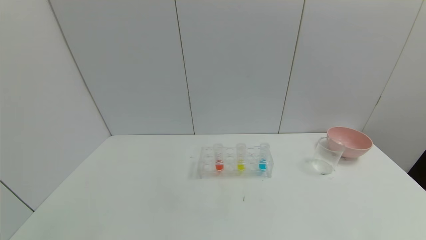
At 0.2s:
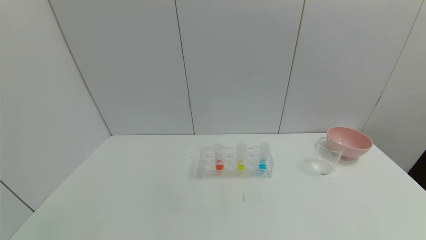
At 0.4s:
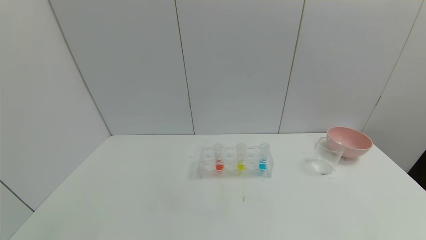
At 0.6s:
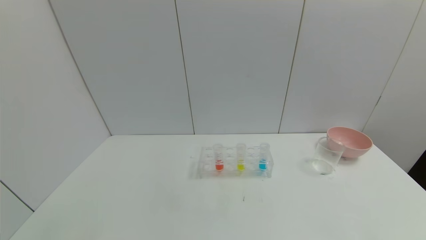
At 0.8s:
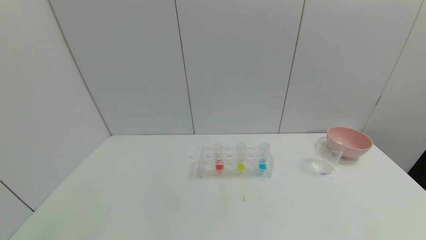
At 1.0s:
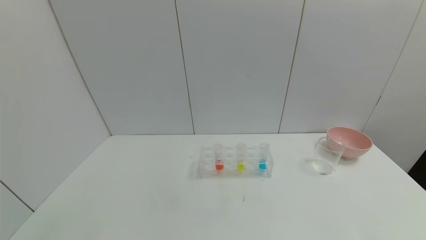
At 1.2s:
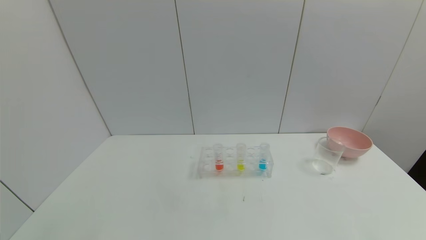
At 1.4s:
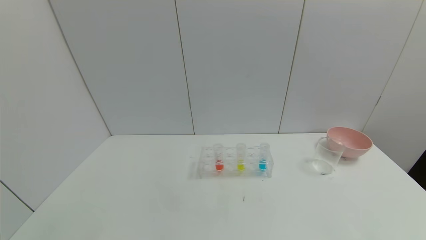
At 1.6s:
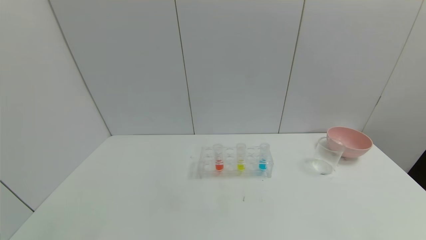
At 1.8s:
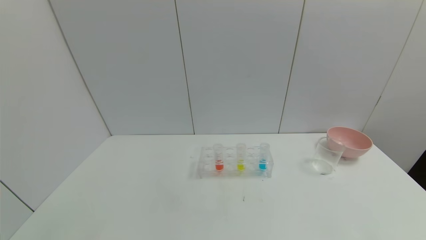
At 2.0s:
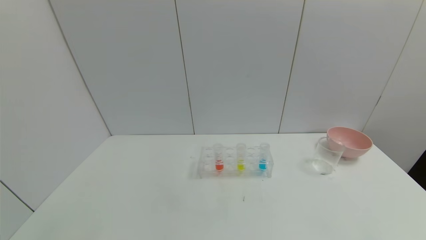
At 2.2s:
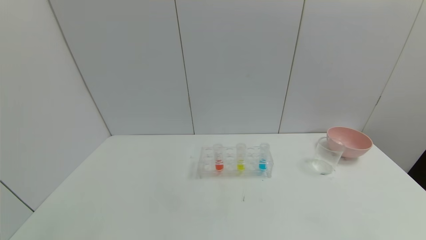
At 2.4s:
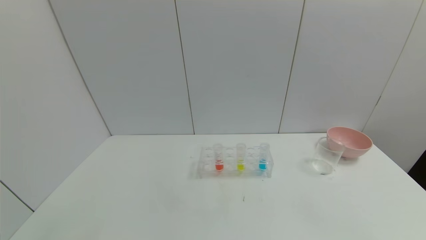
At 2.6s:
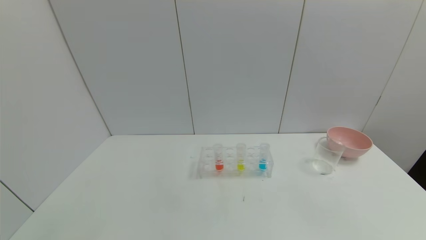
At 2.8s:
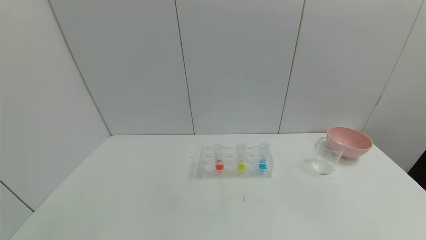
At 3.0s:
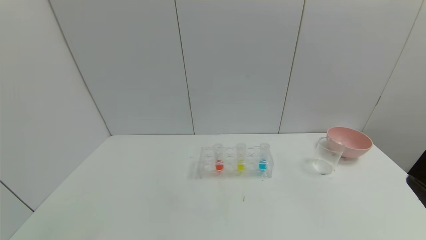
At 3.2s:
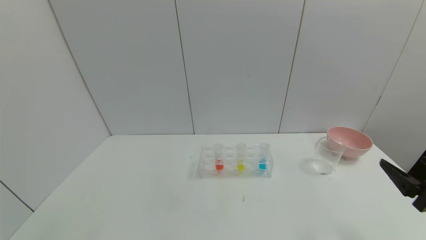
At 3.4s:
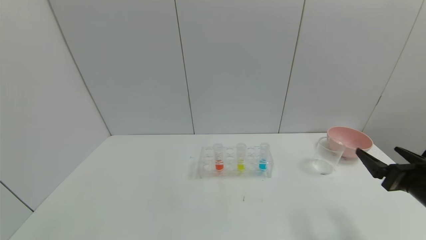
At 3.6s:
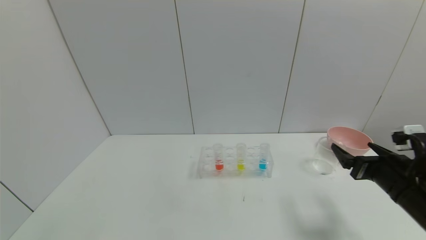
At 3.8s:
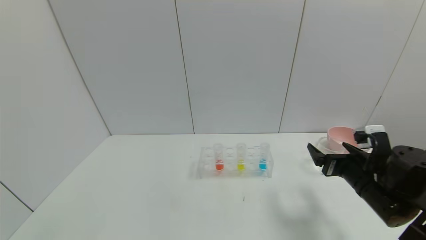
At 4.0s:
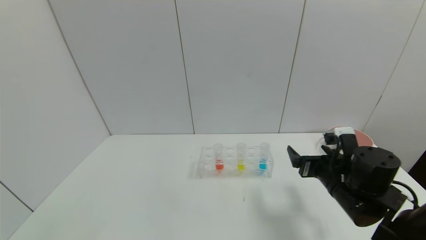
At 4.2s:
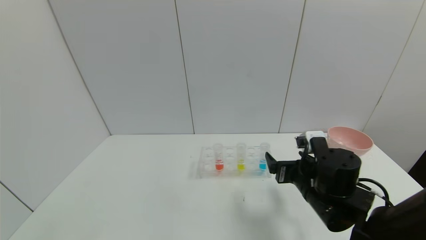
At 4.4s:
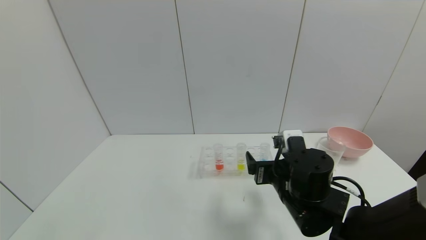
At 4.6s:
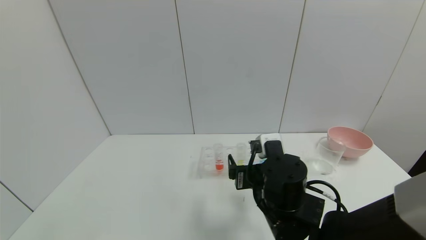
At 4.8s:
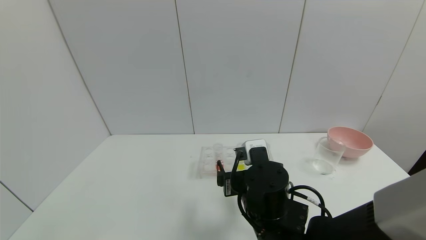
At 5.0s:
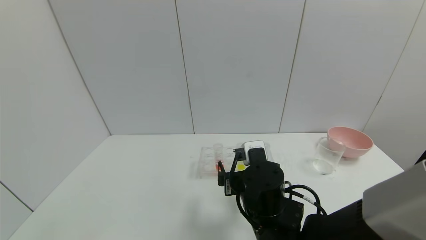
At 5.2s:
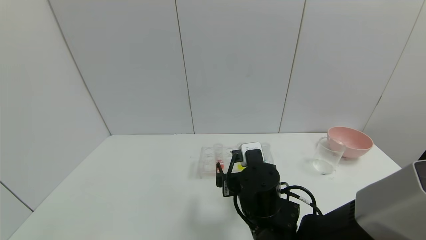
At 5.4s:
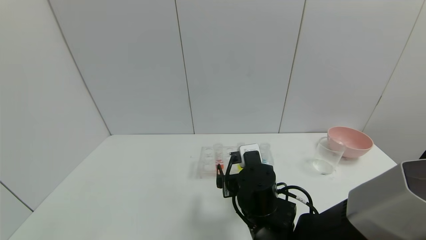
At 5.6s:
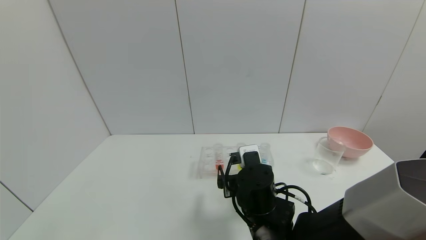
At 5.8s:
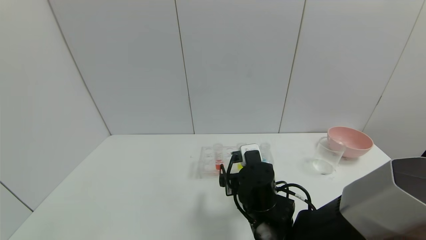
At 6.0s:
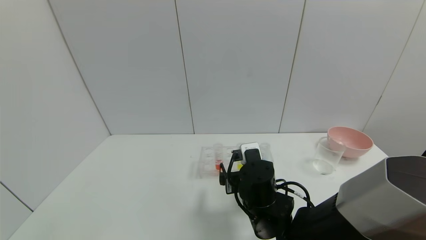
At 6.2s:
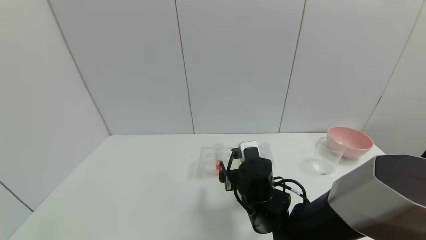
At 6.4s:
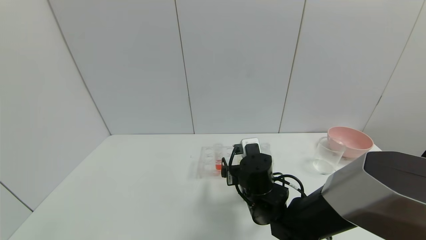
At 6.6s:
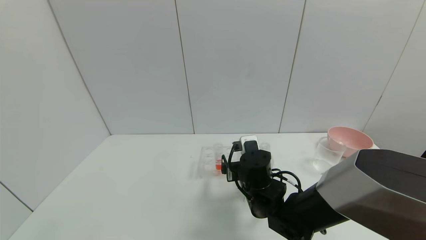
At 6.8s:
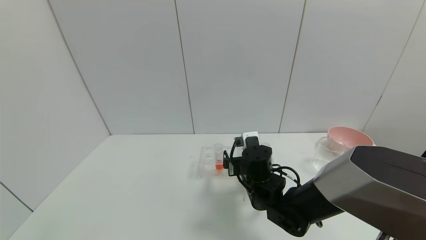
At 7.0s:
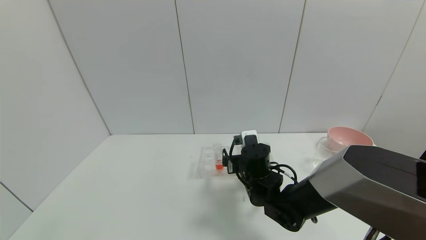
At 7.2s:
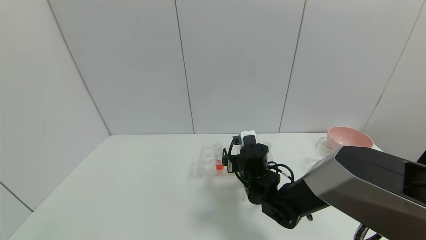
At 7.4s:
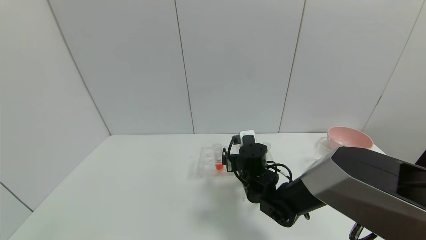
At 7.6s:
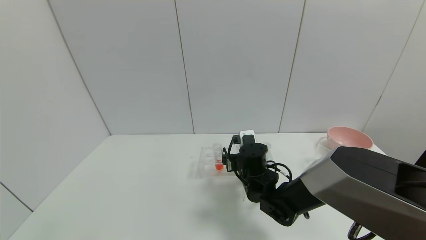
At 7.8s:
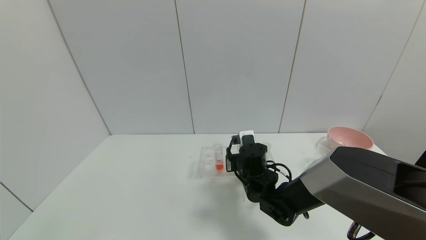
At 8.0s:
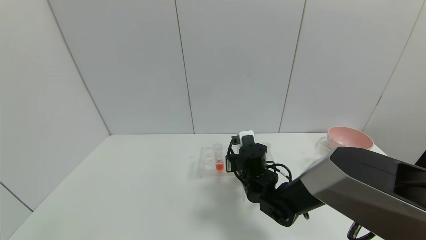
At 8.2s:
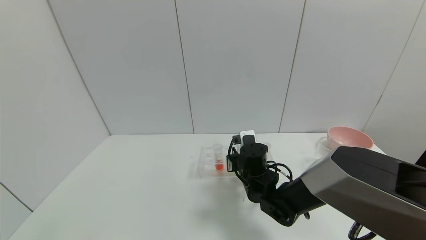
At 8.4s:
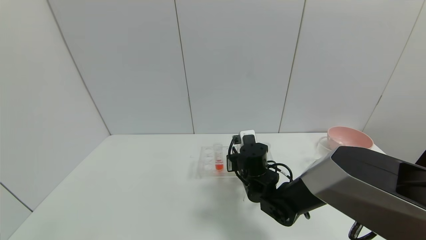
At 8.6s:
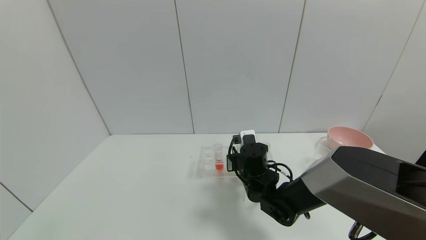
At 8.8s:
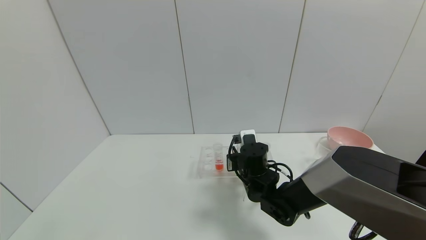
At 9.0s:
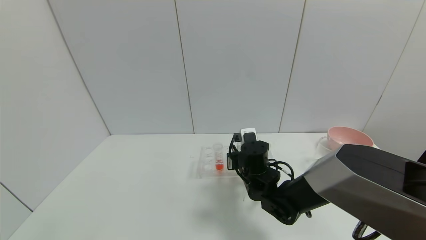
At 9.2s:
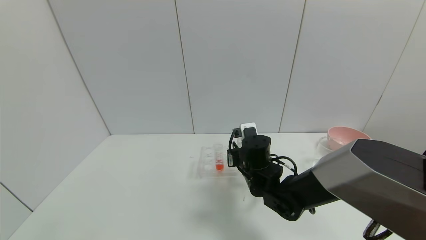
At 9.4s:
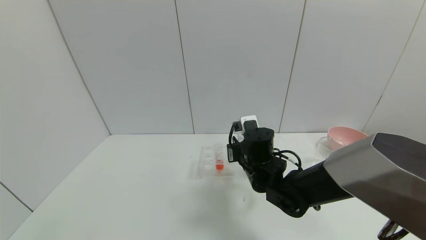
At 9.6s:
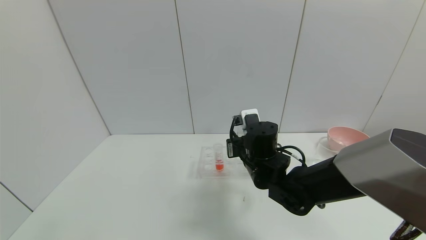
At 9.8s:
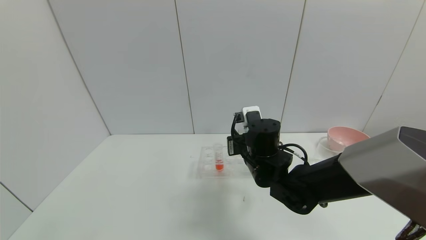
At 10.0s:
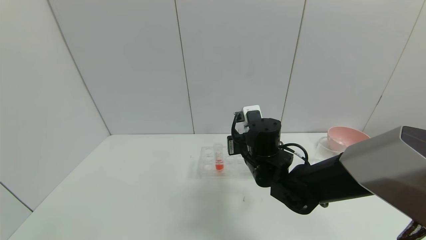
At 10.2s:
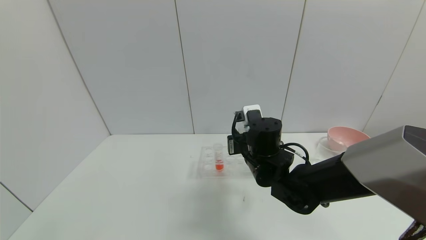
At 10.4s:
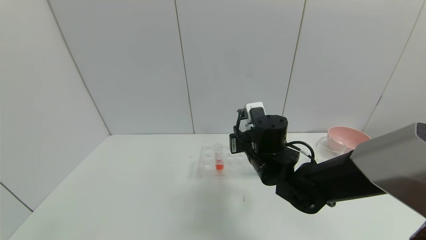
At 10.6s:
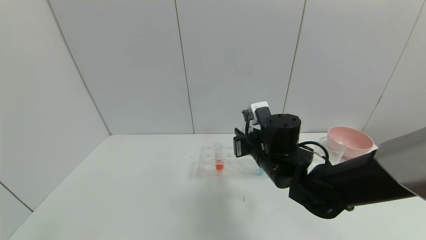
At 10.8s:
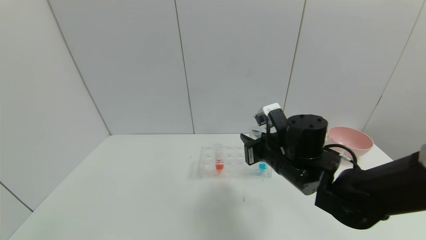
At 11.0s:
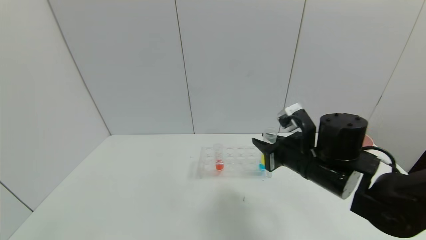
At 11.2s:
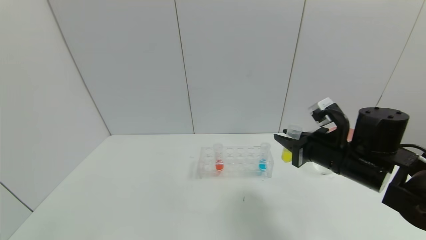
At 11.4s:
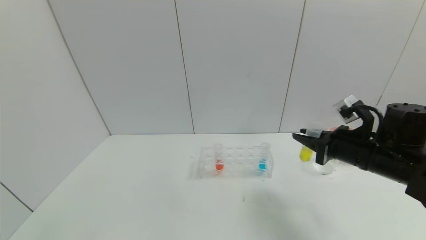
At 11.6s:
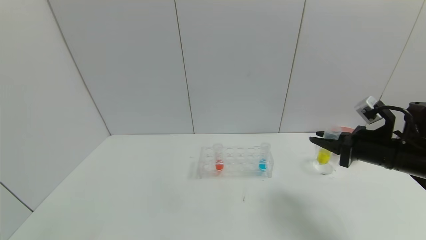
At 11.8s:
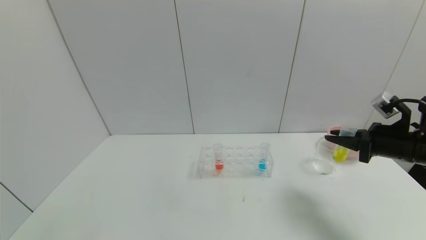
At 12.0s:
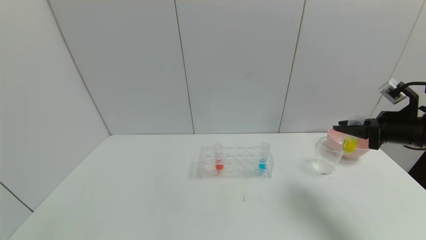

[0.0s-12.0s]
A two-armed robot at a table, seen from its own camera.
Task of the whole recording: pick up the test tube with yellow pigment and the test tube with blue pigment by grippers and pour them into the beaker.
Step, 0.0s to 8.4s: Grasp the yellow reagent with the right gripper.
0.0s to 1.6s: The two grippers keep their place.
3.0s to 4.4s: The right gripper travels to the left and forward by roughly 30 cm.
4.4s to 6.0s: The right gripper shifts about 5 cm to the left.
6.0s to 7.6s: The right gripper heads forward, covering roughly 10 cm.
7.6s to 9.0s: The right gripper closes up.
9.0s to 10.4s: The right gripper goes roughly 5 cm upward.
10.4s to 12.0s: The right gripper heads to the right, covering some 30 cm.

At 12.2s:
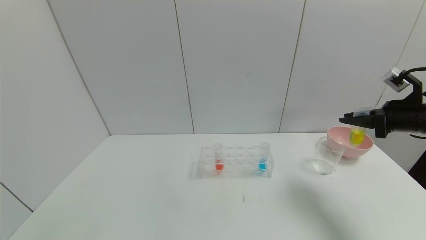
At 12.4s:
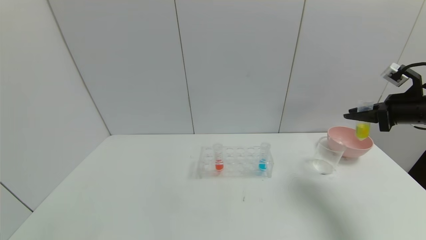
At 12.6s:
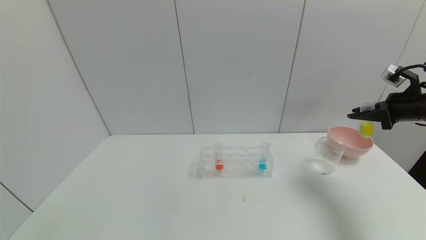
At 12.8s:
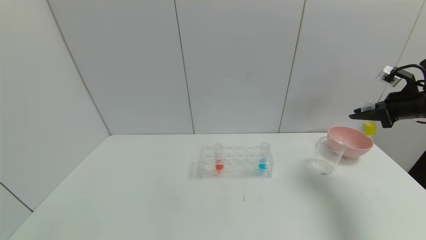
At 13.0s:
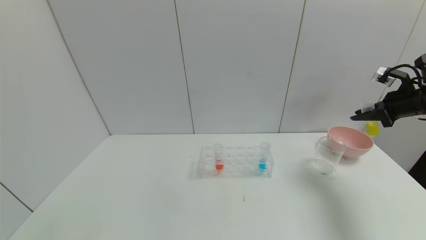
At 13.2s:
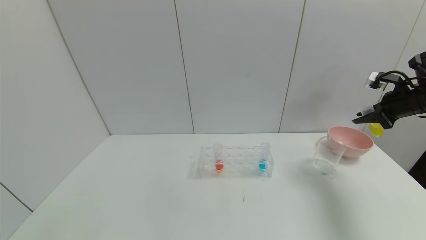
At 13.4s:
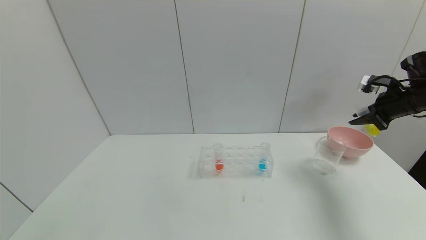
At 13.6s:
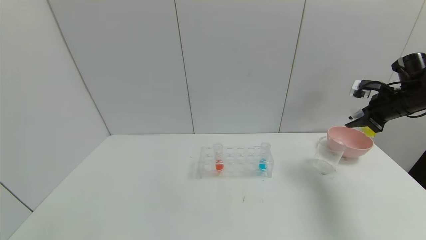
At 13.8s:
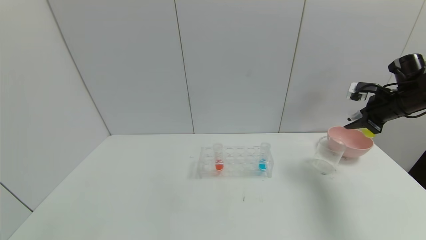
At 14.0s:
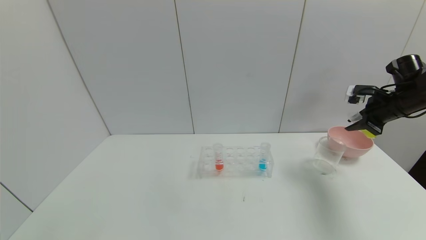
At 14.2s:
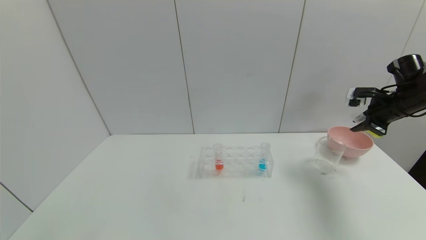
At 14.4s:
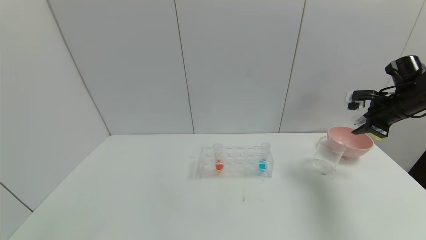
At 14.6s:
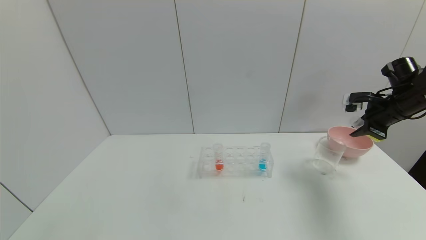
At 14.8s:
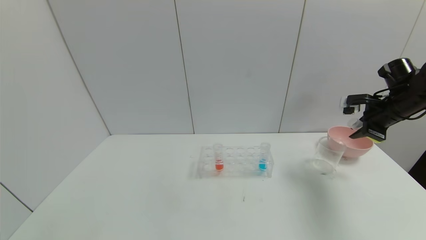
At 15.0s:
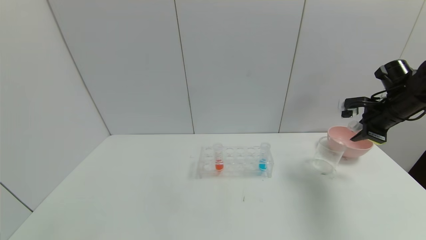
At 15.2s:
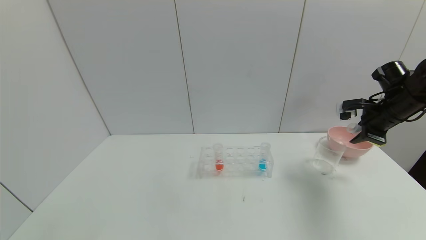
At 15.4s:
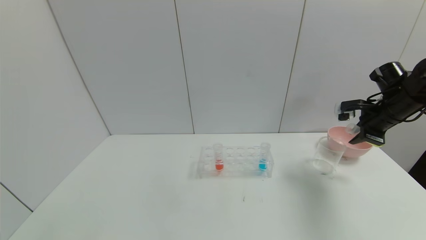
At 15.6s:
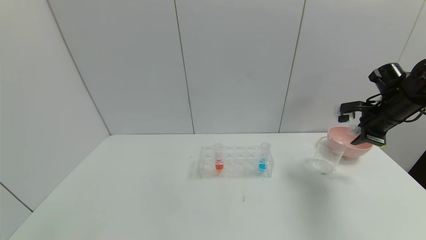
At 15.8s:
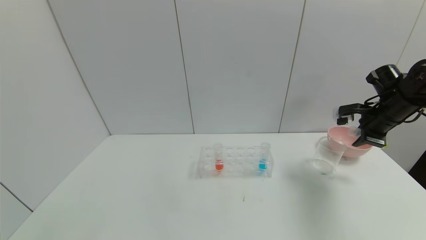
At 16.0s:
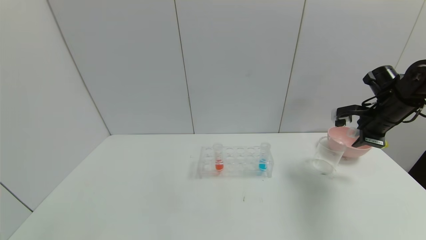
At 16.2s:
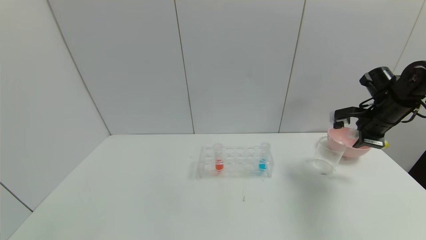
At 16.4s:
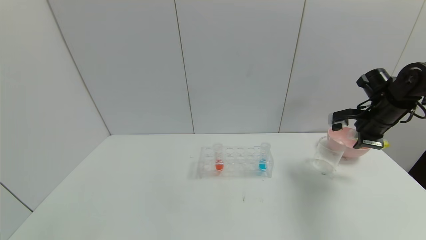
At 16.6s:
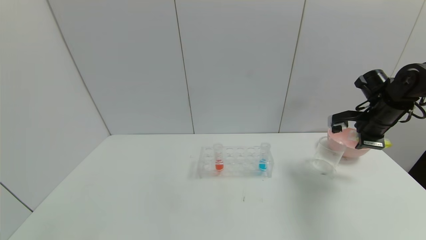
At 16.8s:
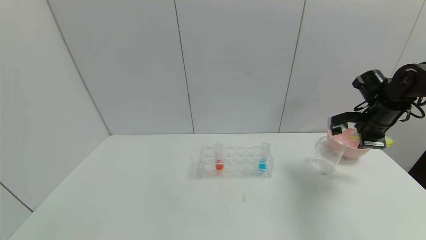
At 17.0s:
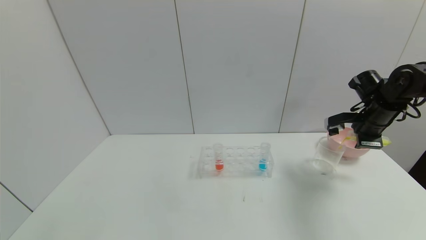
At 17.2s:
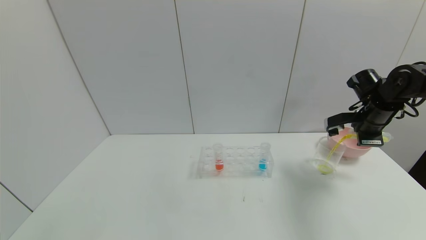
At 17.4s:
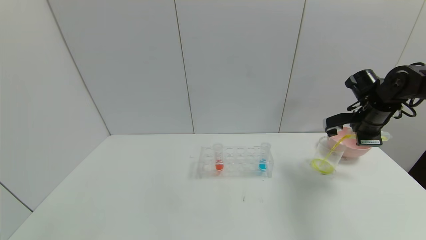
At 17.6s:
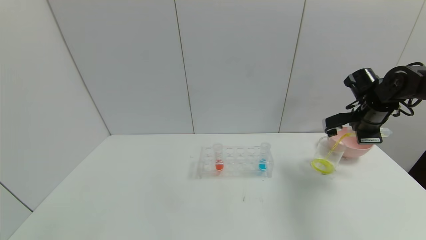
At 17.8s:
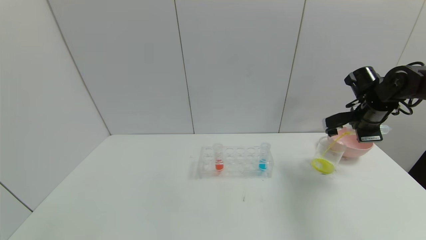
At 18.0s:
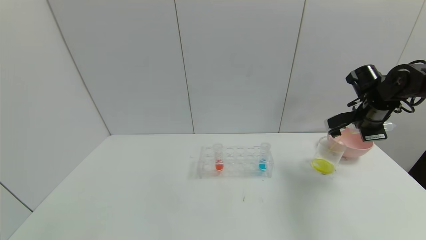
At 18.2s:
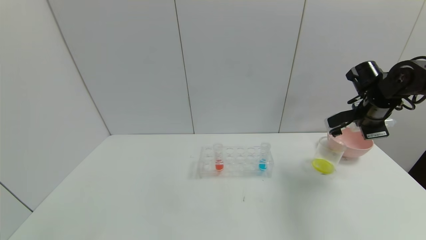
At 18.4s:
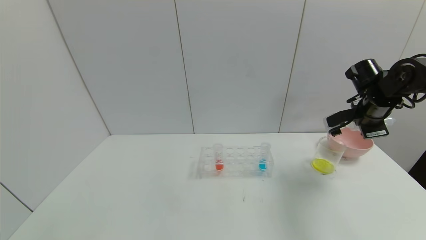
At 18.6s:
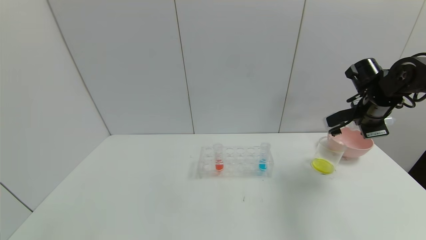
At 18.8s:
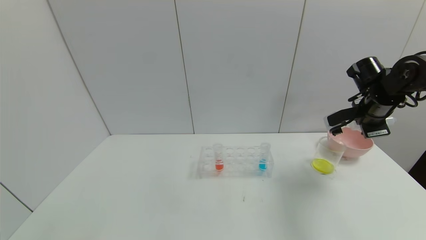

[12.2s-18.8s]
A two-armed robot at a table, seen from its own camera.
Task of the whole recording: pick up the test tube with yellow pigment and the test tube with blue pigment by grippers and pour them into the beaker.
Step, 12.2s to 18.6s: Pour the yellow reagent into the graduated cylinder with the right gripper.
12.2s to 13.8s: The right gripper travels forward by roughly 10 cm.
13.8s to 15.4s: The grippers stay close to where they were, moving slightly.
17.2s to 18.8s: The grippers stay close to where they were, moving slightly.
